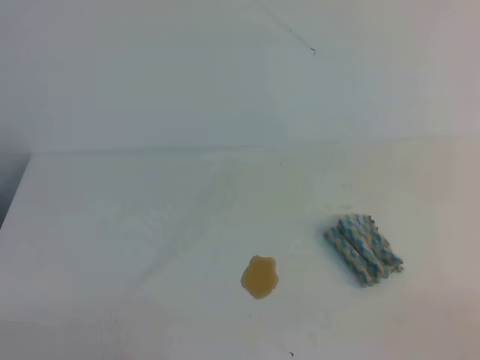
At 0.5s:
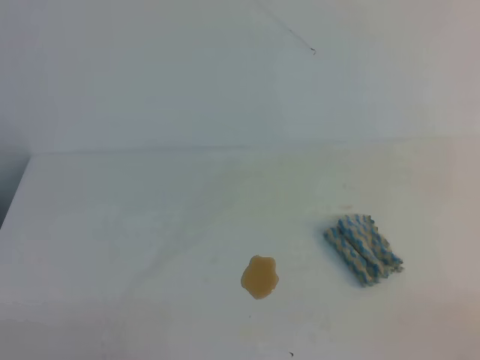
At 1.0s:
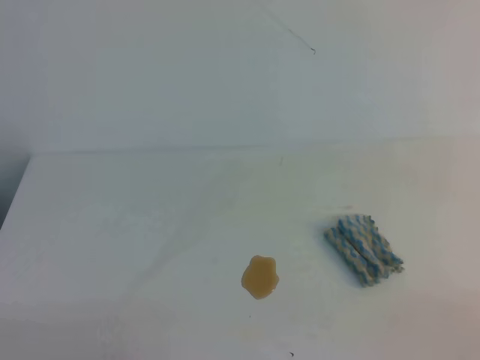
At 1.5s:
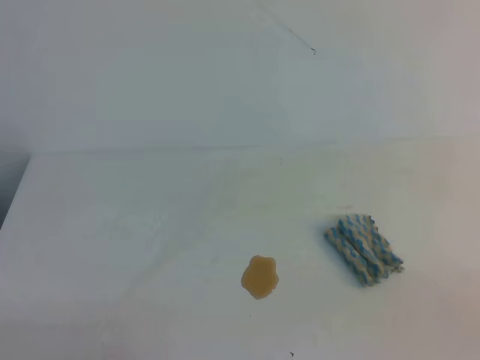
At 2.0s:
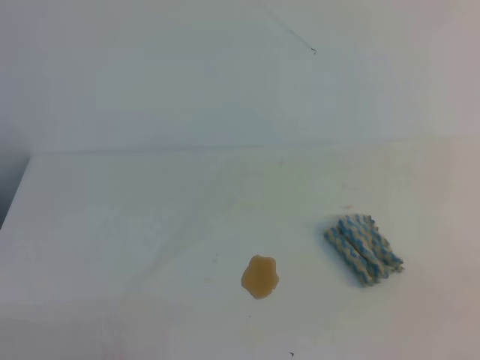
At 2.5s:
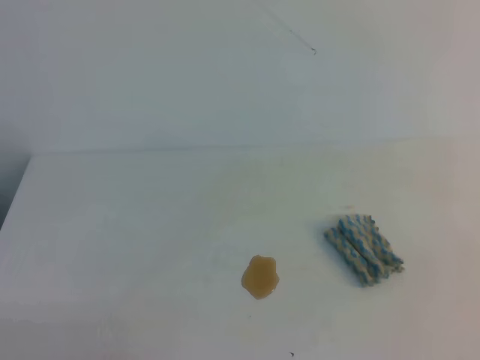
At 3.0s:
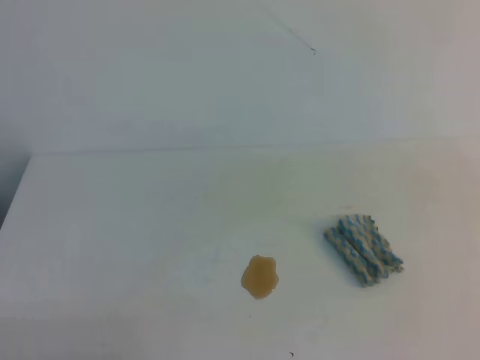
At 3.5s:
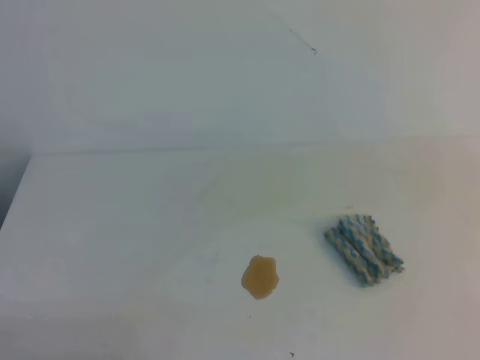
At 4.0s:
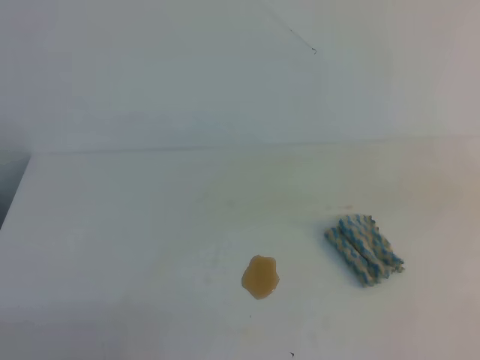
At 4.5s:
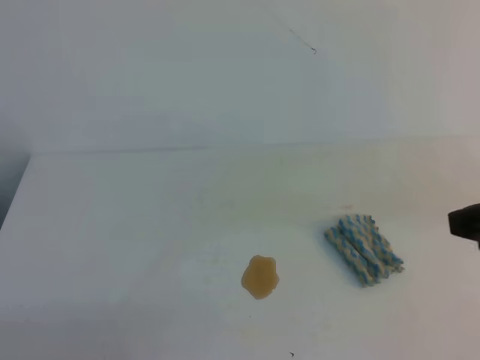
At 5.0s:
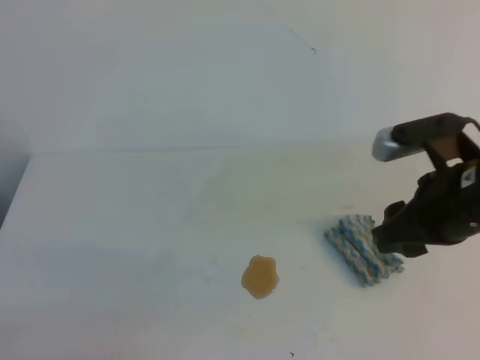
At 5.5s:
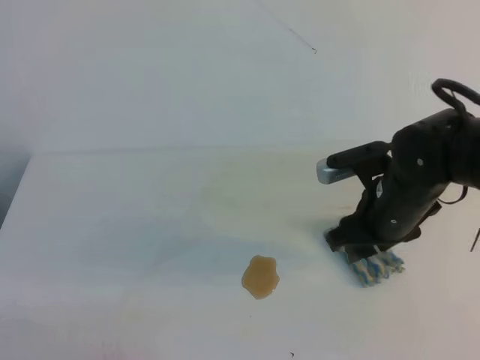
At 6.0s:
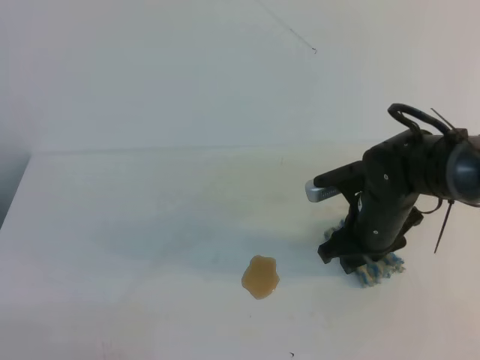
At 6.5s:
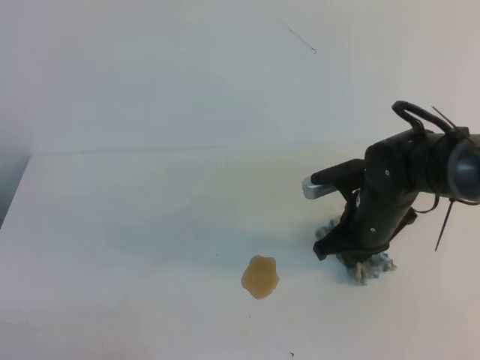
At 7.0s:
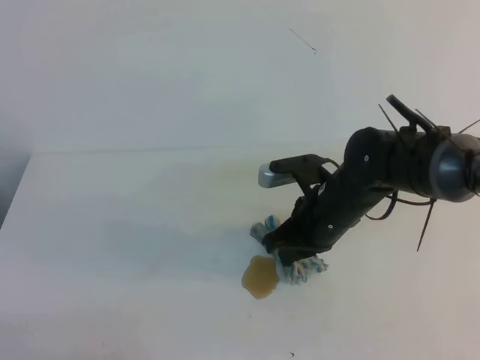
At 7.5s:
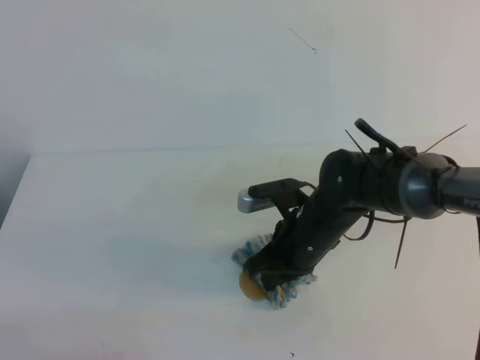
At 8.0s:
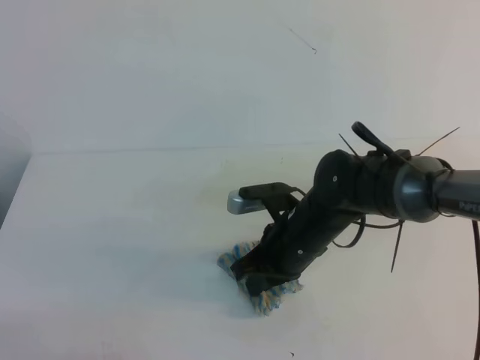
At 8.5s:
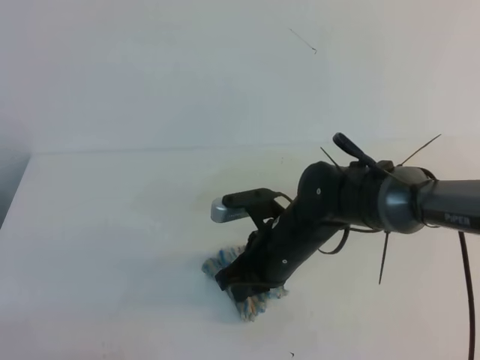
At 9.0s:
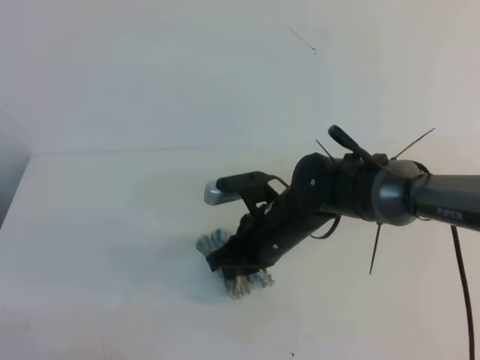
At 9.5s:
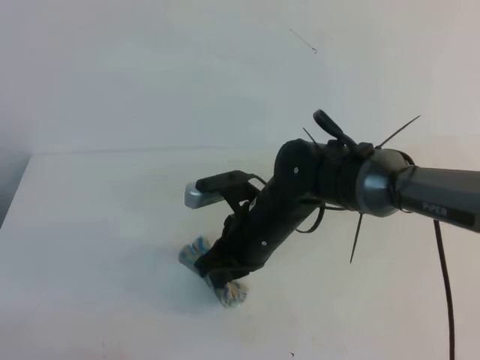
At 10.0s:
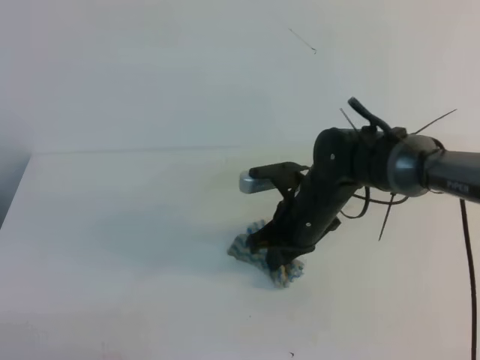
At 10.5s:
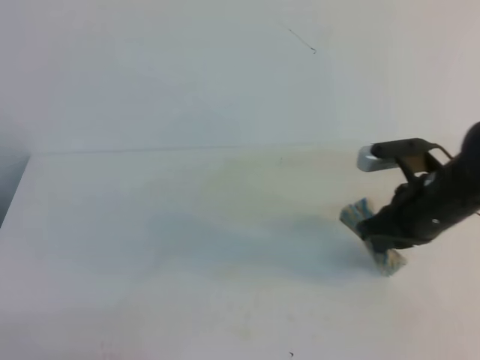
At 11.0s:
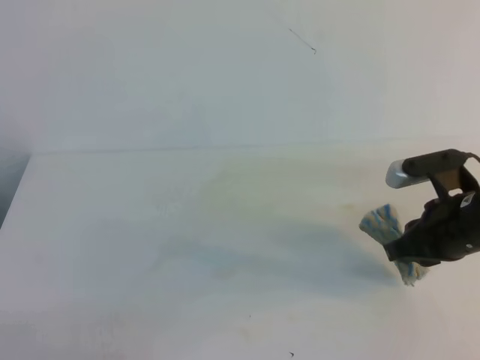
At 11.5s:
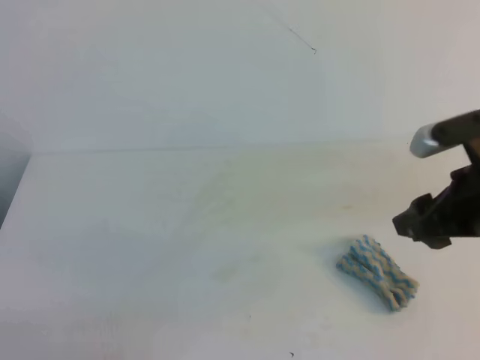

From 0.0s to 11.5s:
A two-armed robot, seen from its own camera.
From 4.0s to 6.0s: The right gripper heads forward, downward and to the left, covering roughly 30 cm, and opens.
From 6.0s to 7.5s: The right gripper shifts roughly 10 cm to the left, and closes up.
From 7.5s to 9.5s: The right gripper heads to the left, covering roughly 5 cm.
From 9.5s to 11.5s: The right gripper is displaced to the right and upward by some 25 cm, and opens its fingers.

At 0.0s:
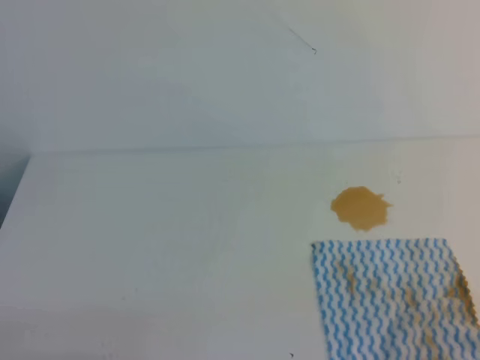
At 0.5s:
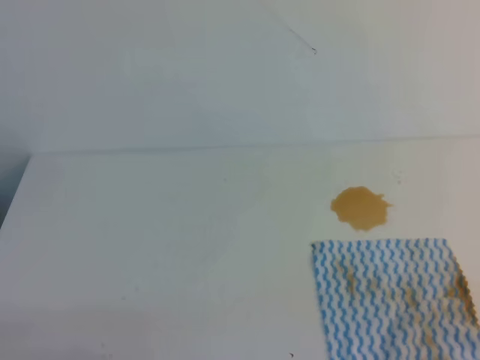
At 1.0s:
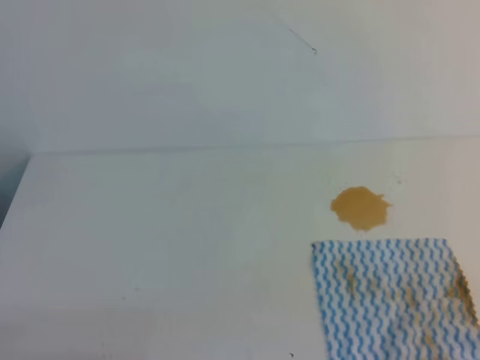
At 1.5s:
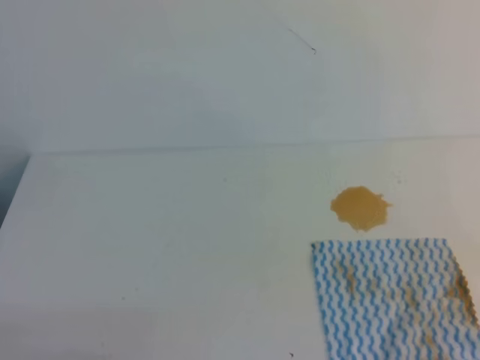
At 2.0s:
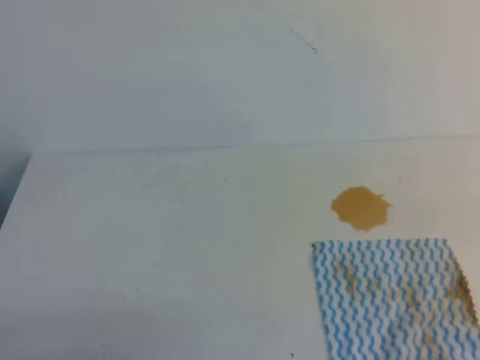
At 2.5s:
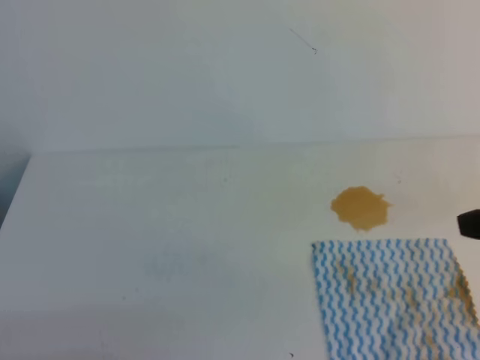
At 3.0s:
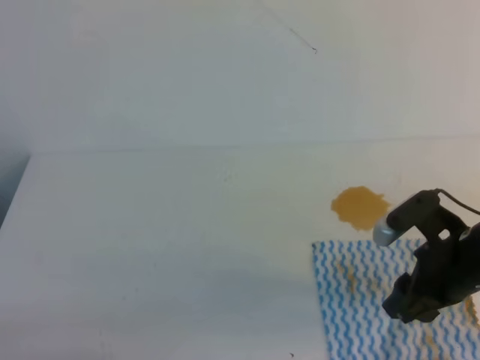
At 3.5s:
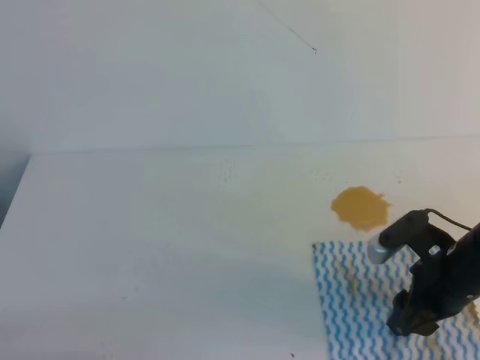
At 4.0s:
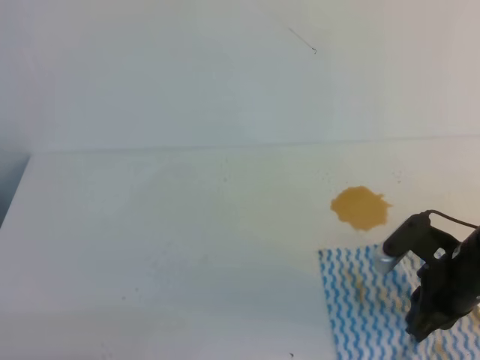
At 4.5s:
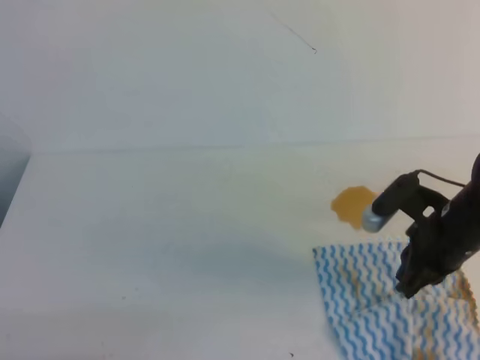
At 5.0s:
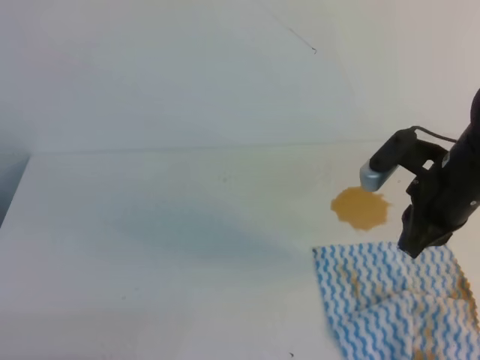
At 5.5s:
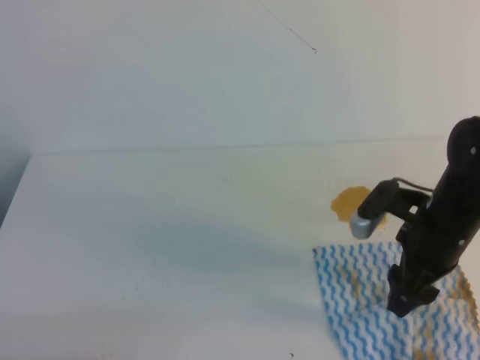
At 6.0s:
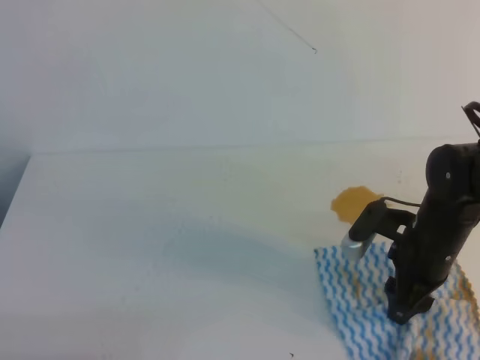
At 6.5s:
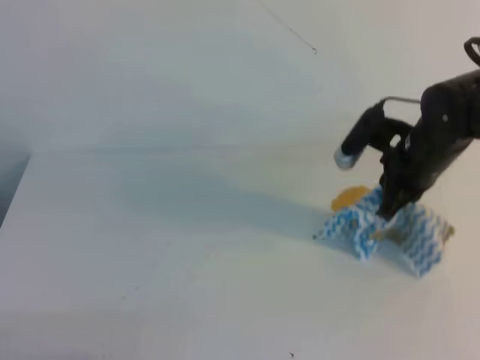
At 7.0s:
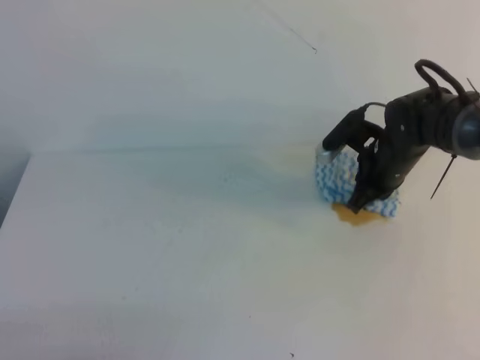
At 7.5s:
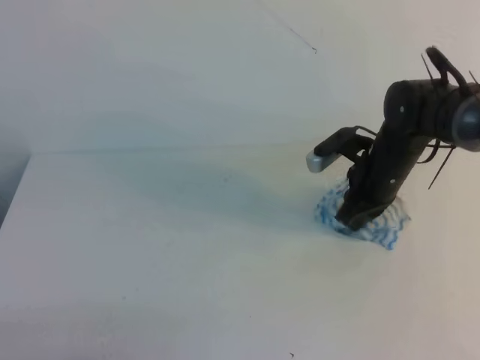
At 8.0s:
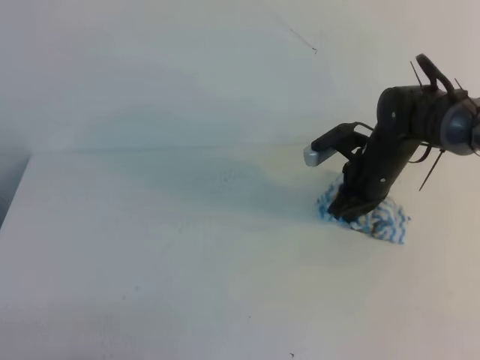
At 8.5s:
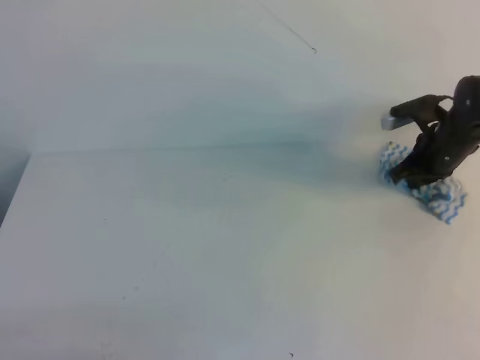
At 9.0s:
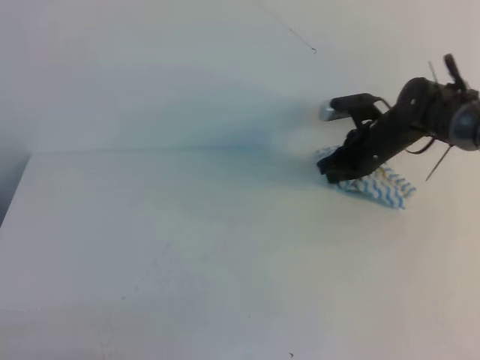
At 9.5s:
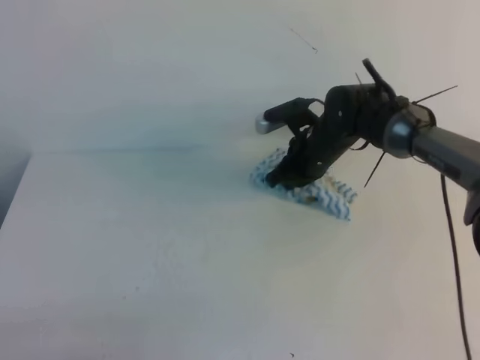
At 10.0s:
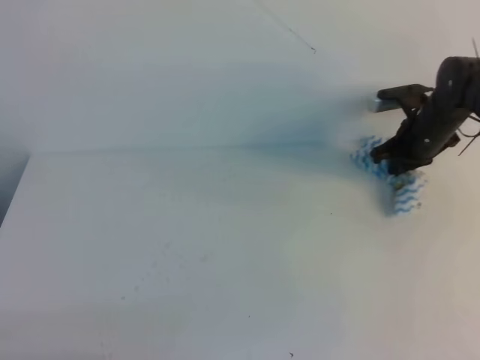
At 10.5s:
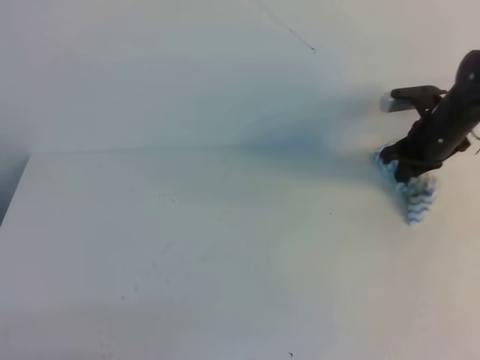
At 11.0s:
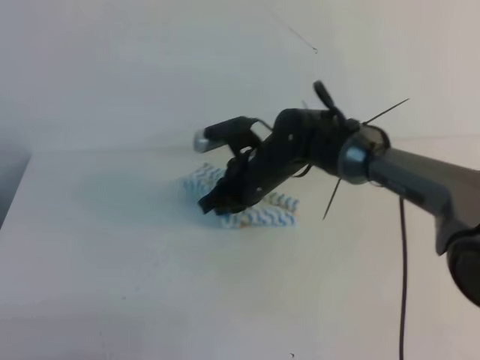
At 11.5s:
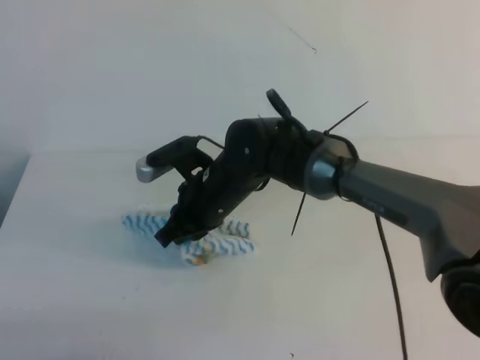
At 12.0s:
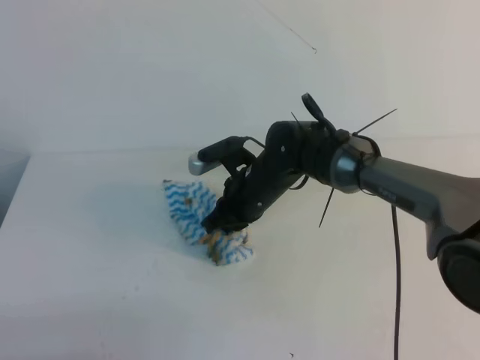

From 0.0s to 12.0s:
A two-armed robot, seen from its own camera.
From 2.0s to 4.0s: The right gripper goes approximately 25 cm downward, forward and to the left, and opens and closes again.
From 4.0s to 6.0s: The right gripper moves about 10 cm upward and comes back, and opens up.
From 6.0s to 8.0s: The right gripper is displaced forward by approximately 10 cm, and closes.
From 8.0s to 10.0s: The right gripper swings left and right, some 15 cm each way, with 2 reversals.
From 10.0s to 12.0s: The right gripper travels to the left and backward by some 25 cm.

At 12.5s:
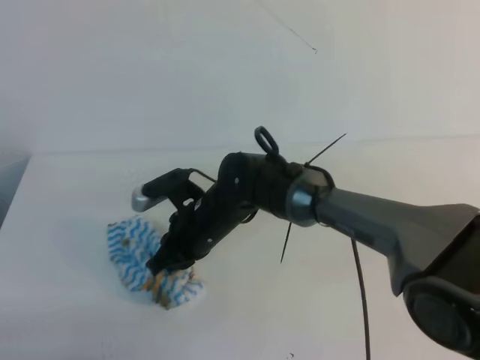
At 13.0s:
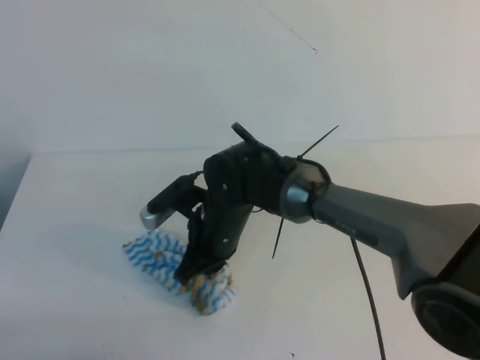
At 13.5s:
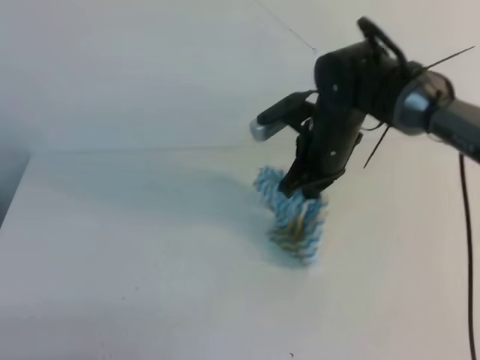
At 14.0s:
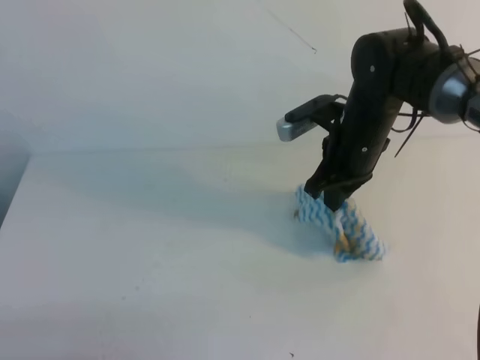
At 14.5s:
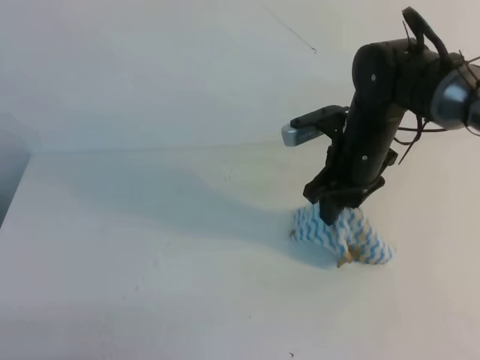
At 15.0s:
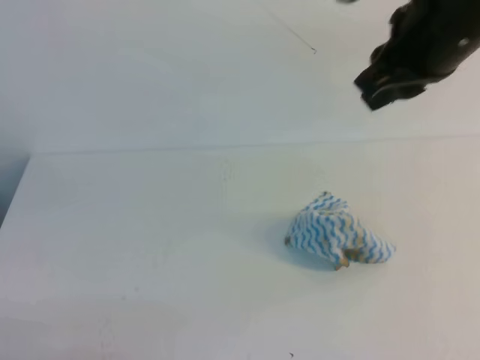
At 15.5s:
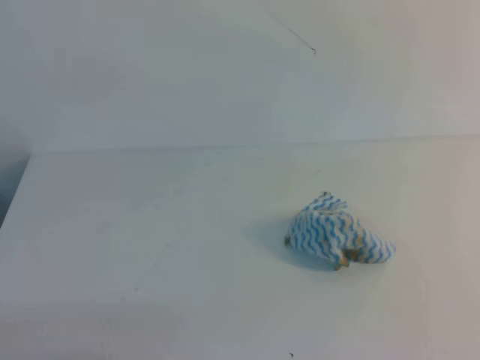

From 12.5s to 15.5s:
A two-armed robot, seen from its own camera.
From 12.5s to 14.0s: The right gripper shifts about 20 cm to the right and upward.
From 14.0s to 15.5s: The right gripper is displaced upward, backward and to the right by some 40 cm, and opens, then closes again.
